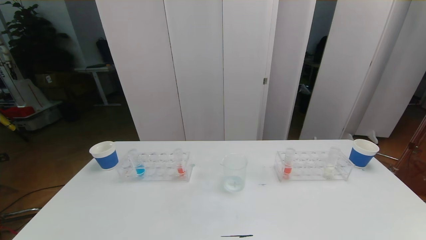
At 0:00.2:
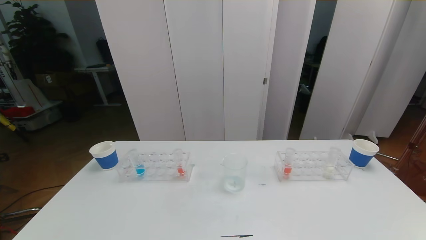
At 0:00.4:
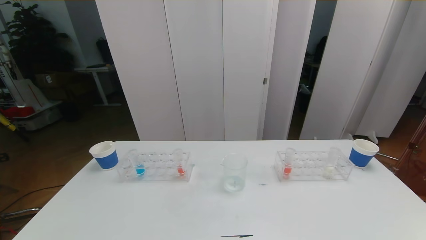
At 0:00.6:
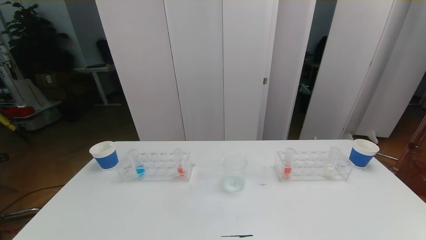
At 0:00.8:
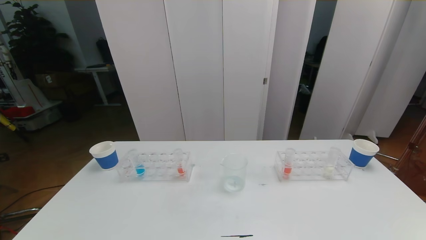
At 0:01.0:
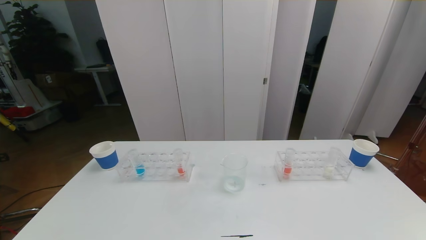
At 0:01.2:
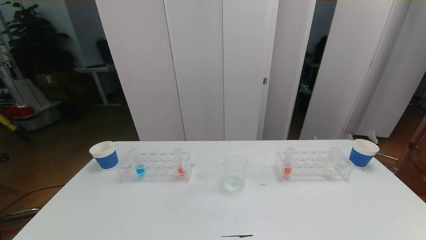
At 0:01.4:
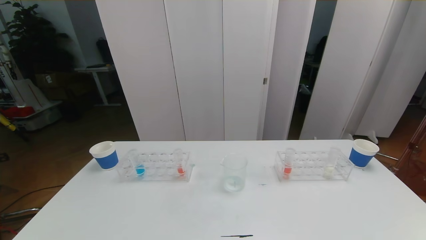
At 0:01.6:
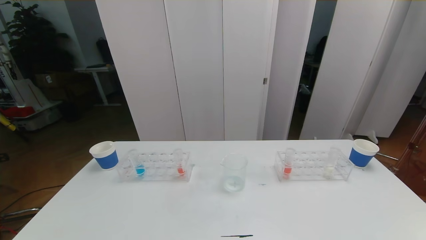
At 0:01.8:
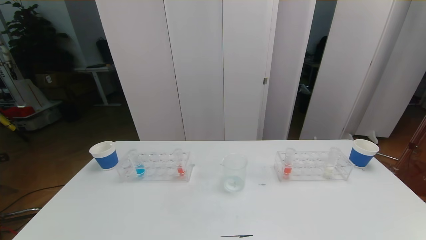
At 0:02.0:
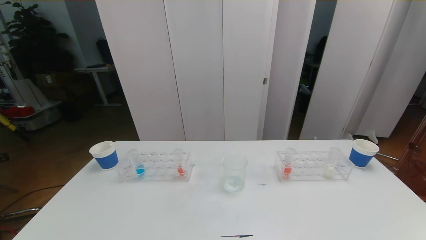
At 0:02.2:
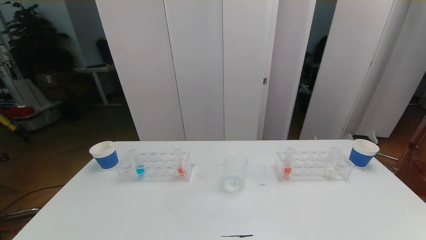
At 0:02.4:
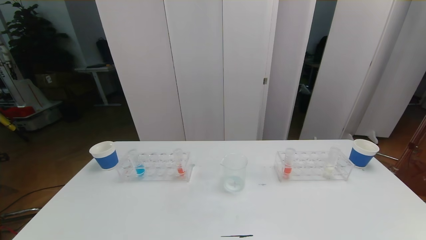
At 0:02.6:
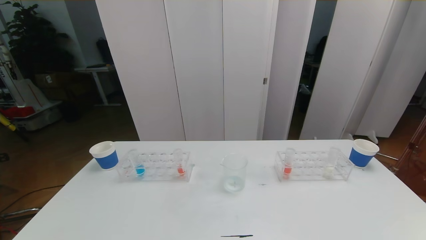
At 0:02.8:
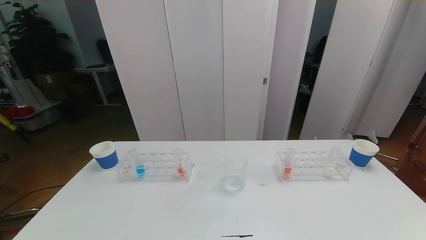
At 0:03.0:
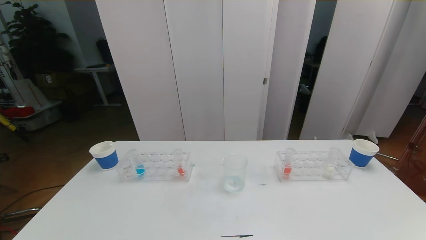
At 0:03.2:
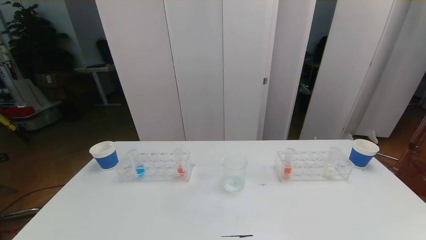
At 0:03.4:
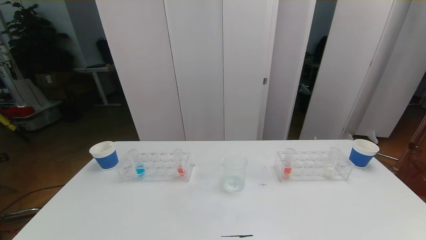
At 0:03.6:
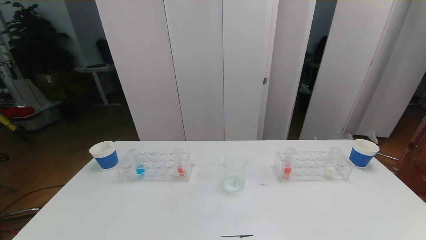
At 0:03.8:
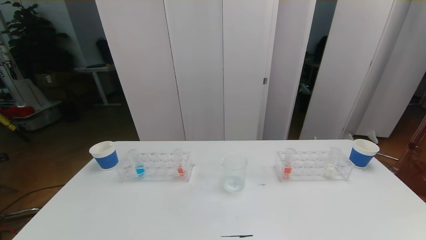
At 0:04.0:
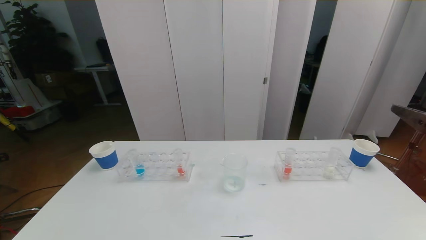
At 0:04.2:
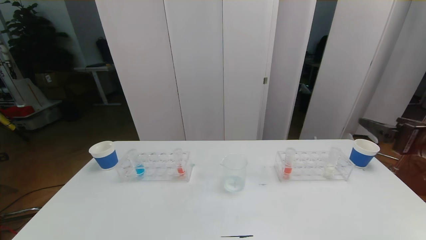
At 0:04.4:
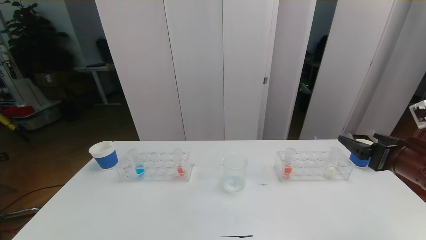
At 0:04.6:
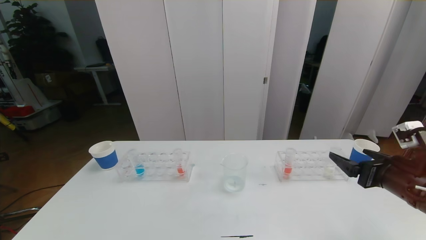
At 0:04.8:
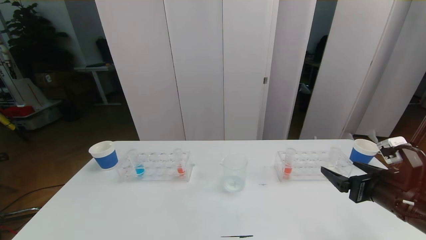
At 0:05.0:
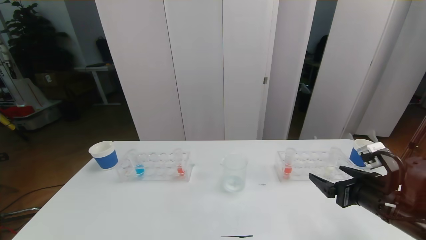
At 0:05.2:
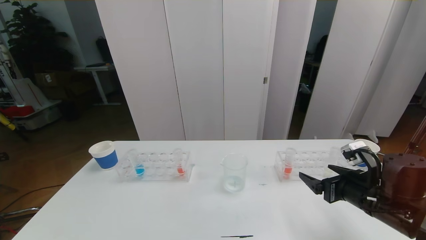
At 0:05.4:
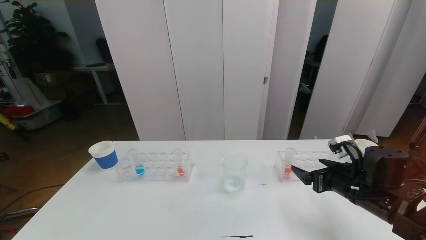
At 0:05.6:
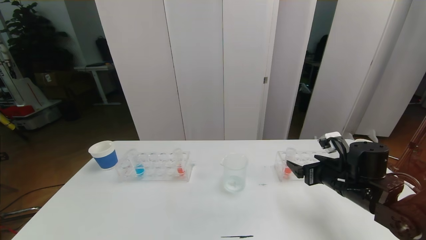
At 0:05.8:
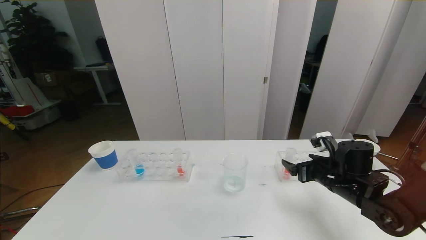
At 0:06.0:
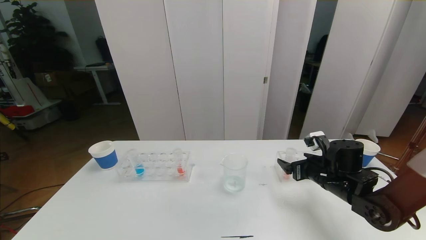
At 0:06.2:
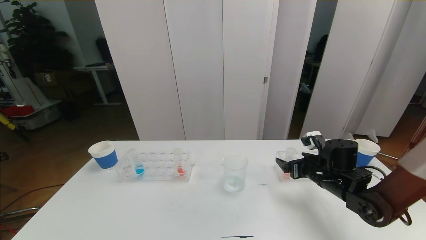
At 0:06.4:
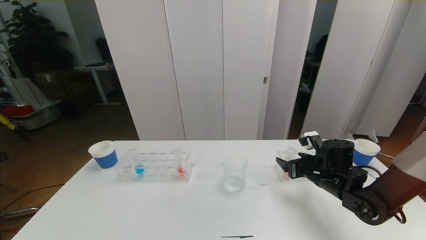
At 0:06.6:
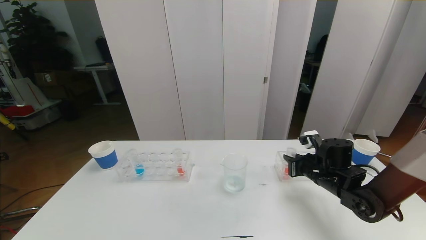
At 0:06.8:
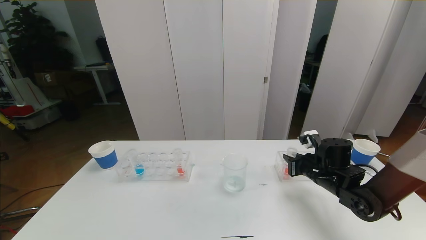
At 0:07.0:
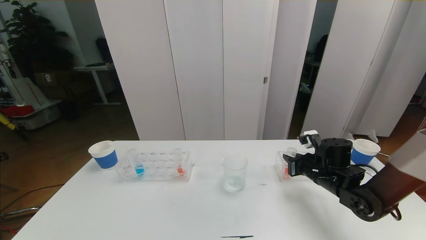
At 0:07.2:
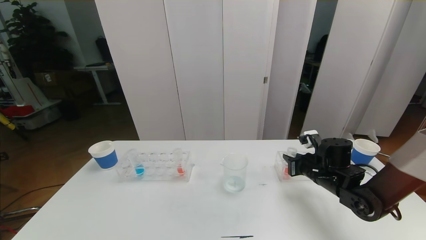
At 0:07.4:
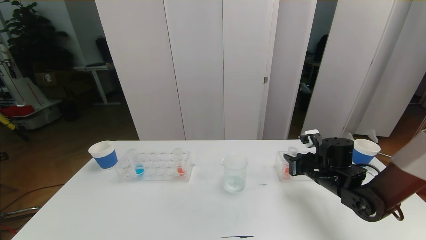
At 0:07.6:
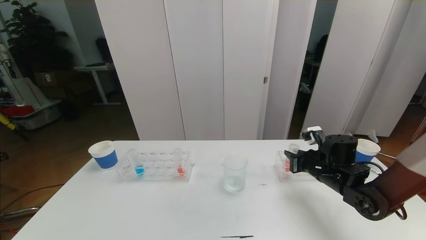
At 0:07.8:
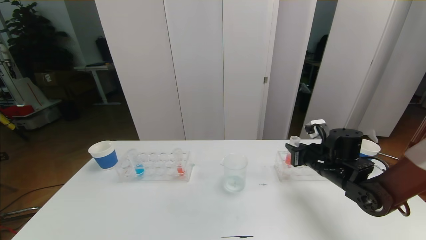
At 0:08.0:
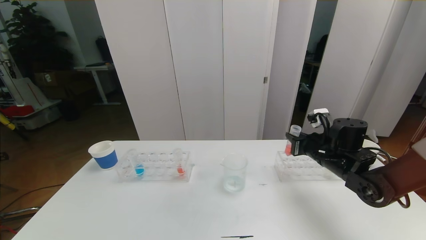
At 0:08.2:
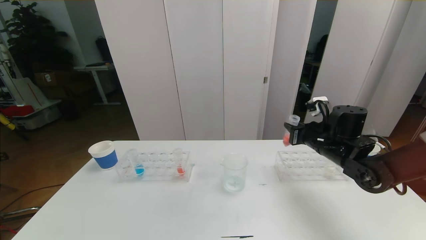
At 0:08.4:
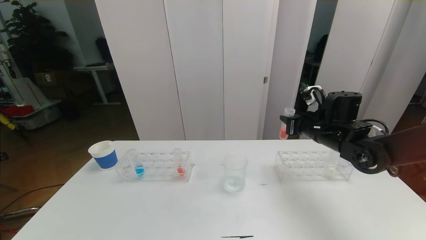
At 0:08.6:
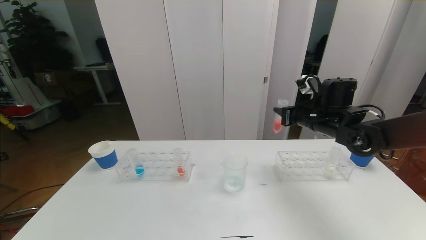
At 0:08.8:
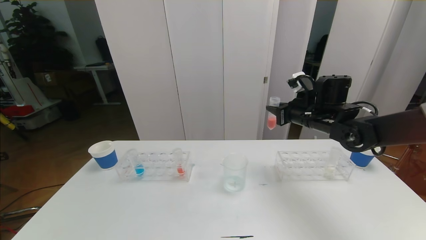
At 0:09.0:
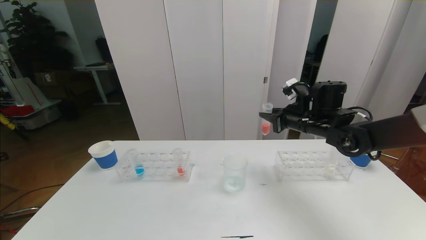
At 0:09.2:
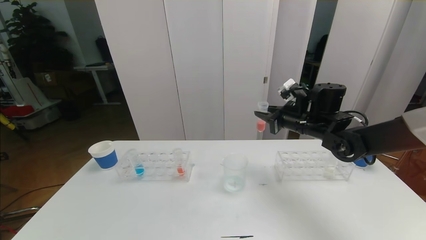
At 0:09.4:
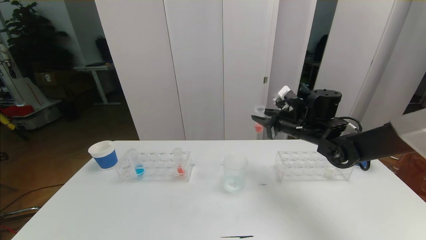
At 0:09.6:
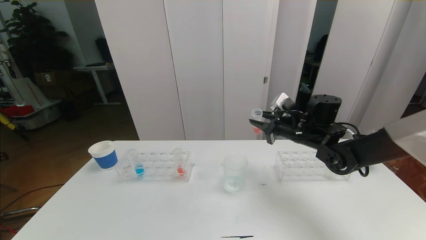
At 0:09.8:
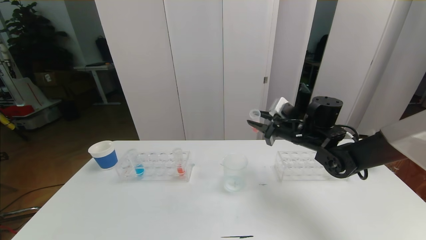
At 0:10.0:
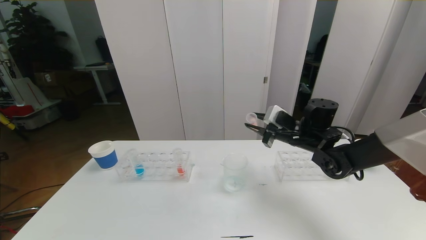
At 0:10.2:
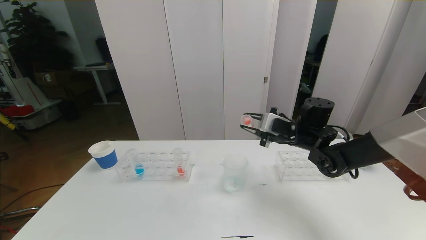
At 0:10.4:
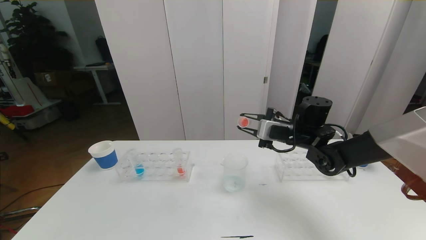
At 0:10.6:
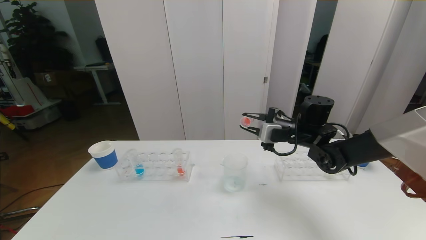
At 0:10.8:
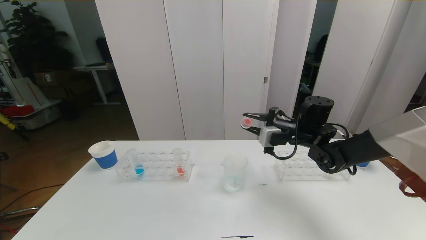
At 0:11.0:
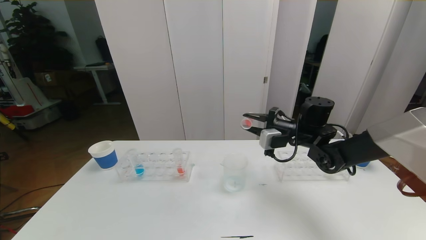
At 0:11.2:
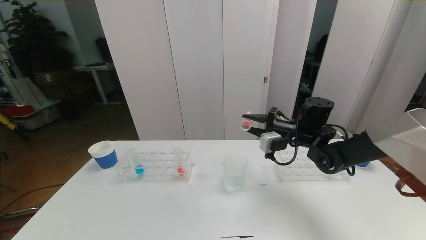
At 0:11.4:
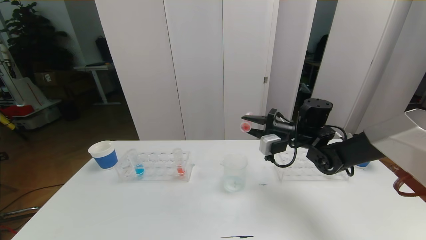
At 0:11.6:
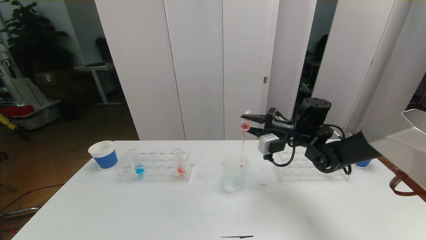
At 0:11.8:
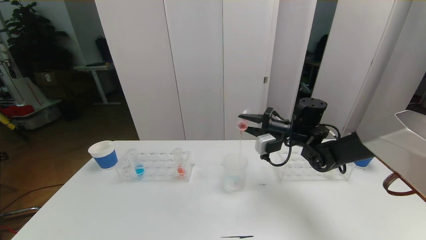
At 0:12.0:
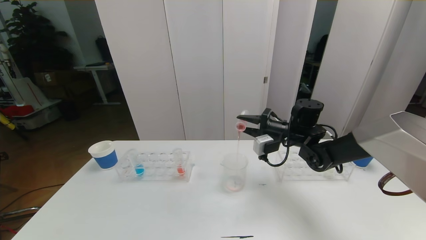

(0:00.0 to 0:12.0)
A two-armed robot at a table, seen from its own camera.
Task of the whole recording: pick up the test tube with red pigment the test tube with blue pigment and the test tube with white pigment by grippers and pour them into the beaker.
0:00.0 - 0:01.6: Neither gripper changes place.
0:03.0 - 0:04.4: The right gripper travels forward by approximately 25 cm.
0:04.4 - 0:06.0: The right gripper moves downward, forward and to the left, some 15 cm.
0:06.0 - 0:07.6: The right gripper closes its fingers.
0:07.6 - 0:09.0: The right gripper moves upward and forward, roughly 10 cm.

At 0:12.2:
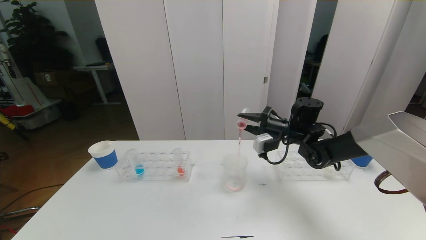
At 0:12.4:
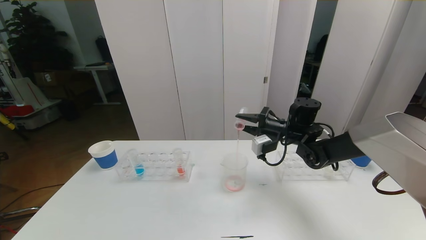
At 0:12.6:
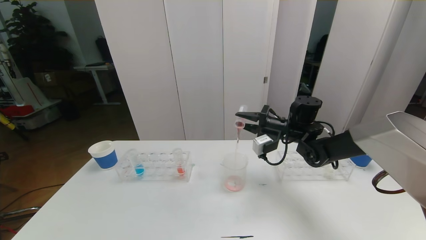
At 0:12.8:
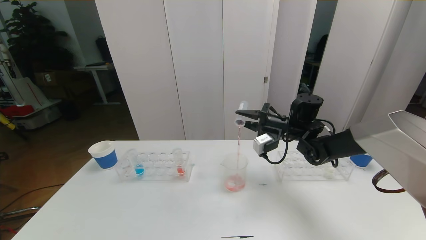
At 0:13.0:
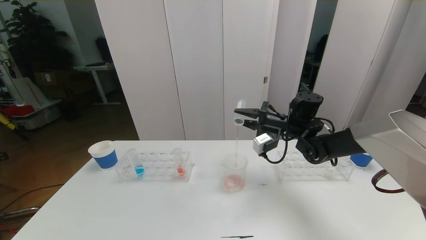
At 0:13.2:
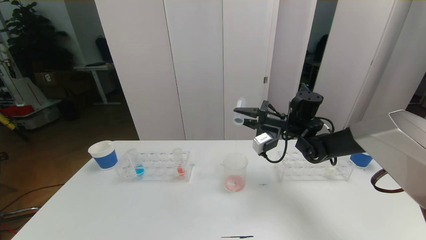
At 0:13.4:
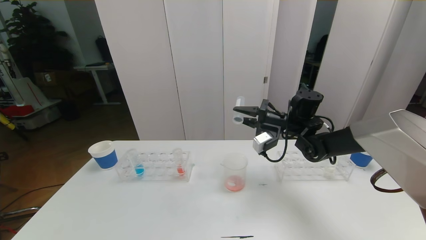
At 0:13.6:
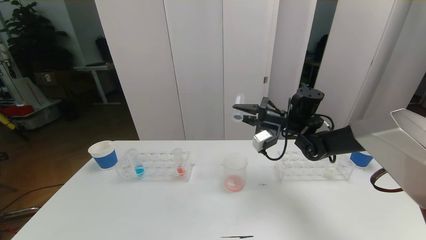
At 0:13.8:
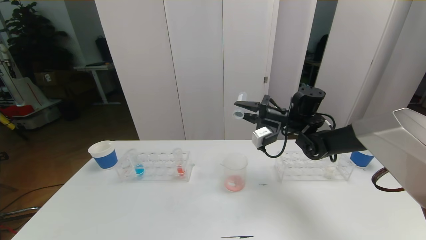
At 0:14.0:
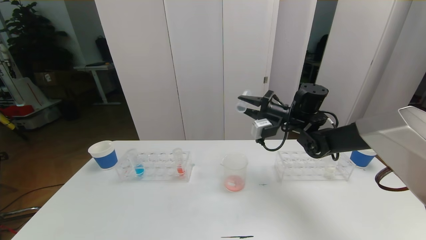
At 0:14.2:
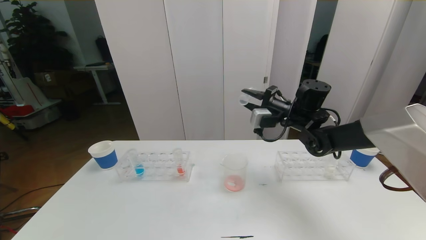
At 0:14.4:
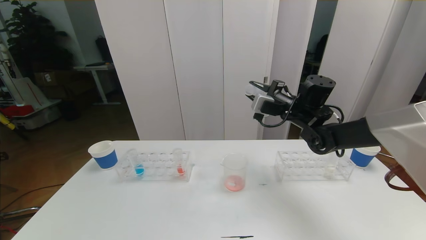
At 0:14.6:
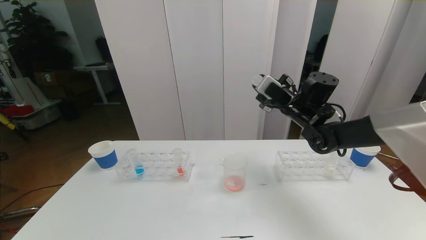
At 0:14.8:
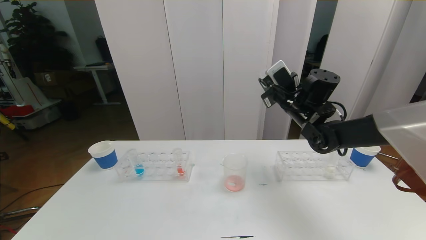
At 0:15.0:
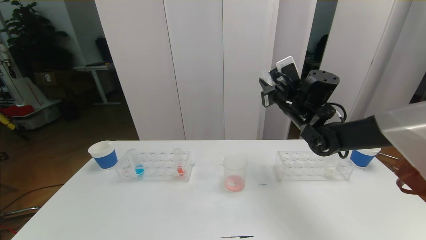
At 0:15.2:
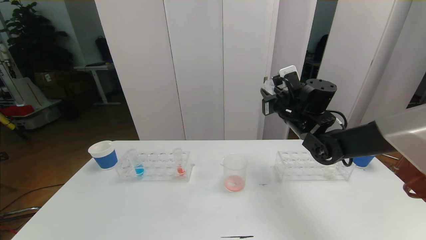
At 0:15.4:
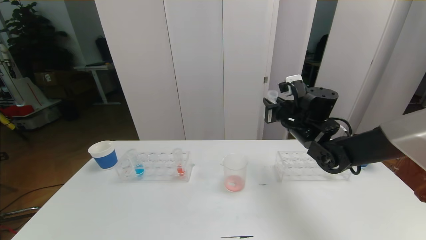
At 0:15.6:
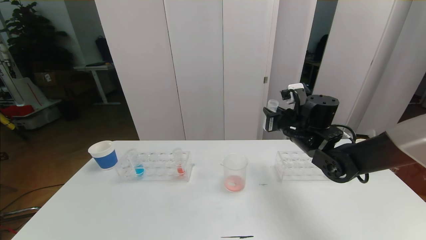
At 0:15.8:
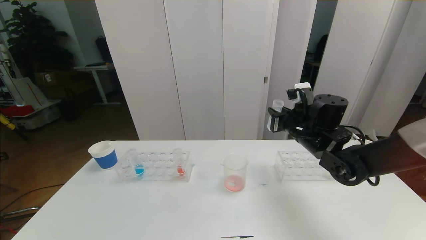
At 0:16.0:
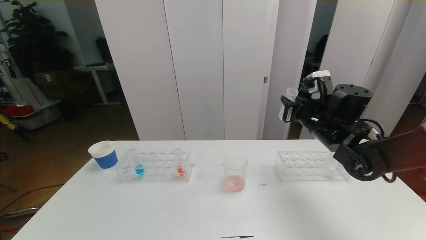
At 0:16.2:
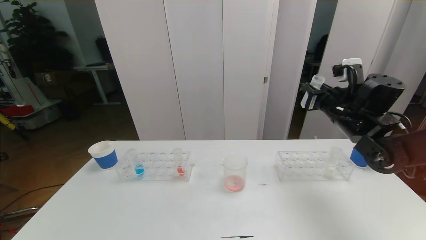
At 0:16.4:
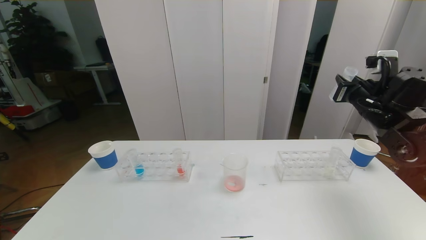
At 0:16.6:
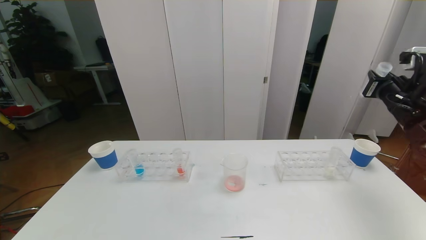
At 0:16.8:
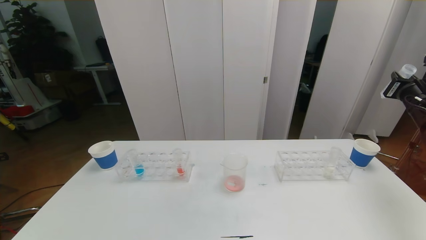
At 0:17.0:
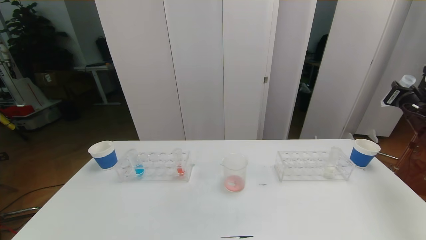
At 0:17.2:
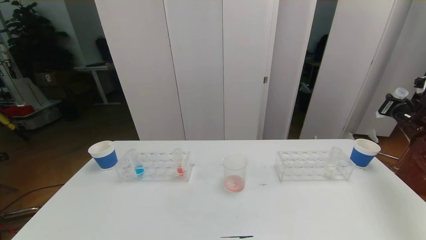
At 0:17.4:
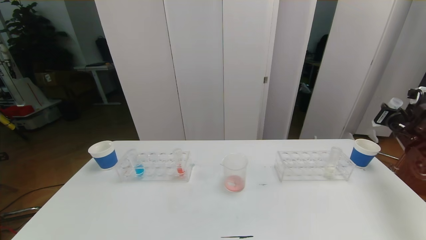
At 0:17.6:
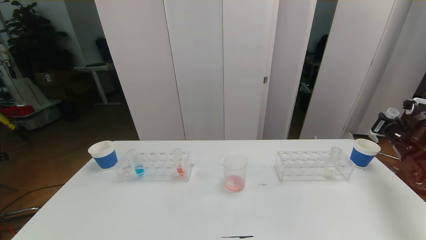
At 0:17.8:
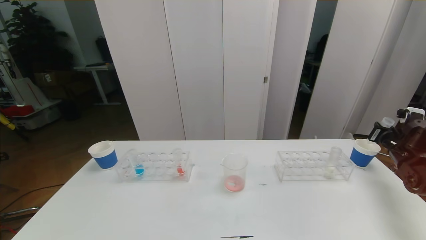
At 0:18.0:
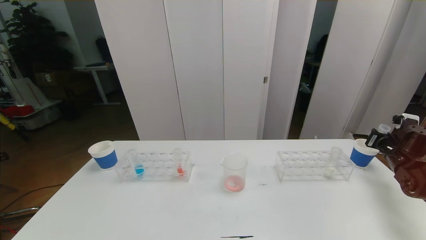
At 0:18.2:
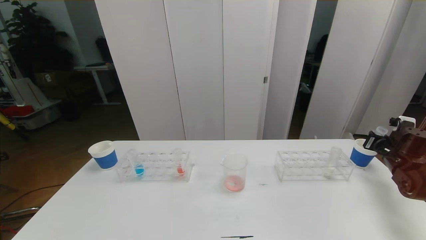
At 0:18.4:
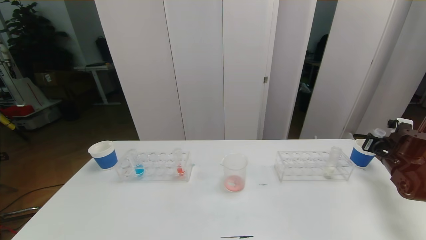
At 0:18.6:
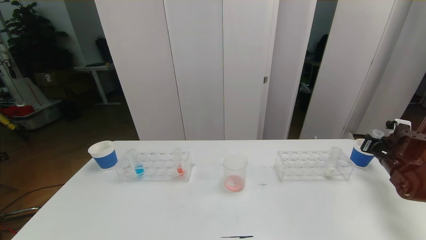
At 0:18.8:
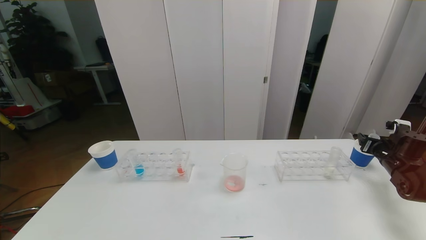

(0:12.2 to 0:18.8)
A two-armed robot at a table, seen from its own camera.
Task of the whole recording: pick up the test tube with red pigment the test tube with blue pigment and the test tube with white pigment by grippers and pour them into the beaker.
0:12.2 - 0:13.8: The grippers stay close to where they were, moving slightly.
0:15.4 - 0:17.2: The right gripper moves to the right, roughly 30 cm.
0:17.2 - 0:18.8: The right gripper goes about 10 cm downward, and opens.
